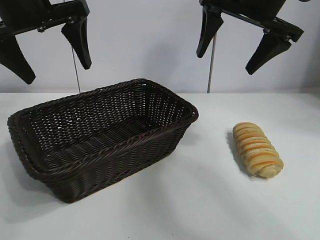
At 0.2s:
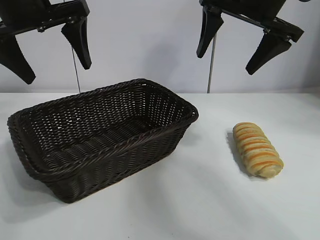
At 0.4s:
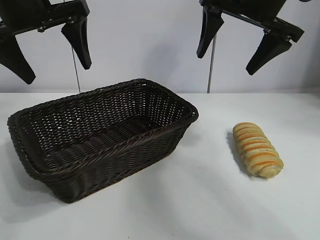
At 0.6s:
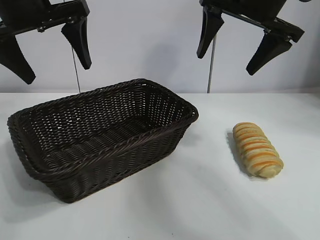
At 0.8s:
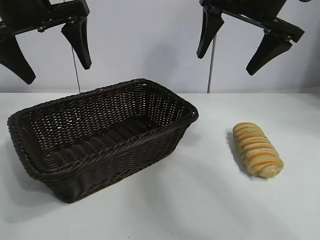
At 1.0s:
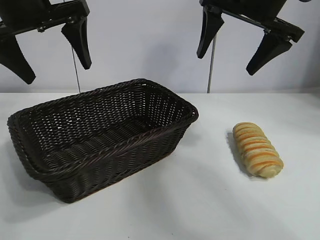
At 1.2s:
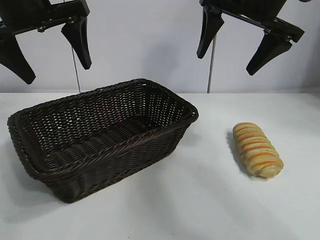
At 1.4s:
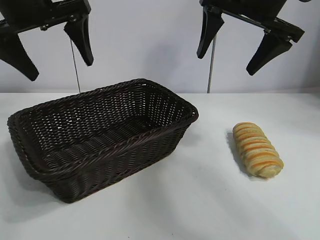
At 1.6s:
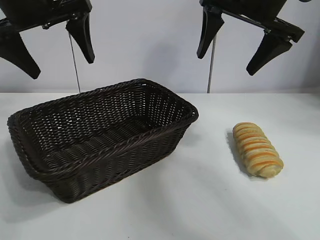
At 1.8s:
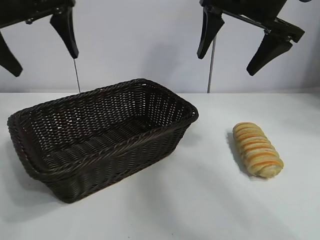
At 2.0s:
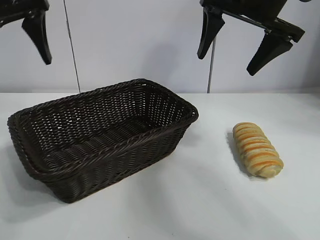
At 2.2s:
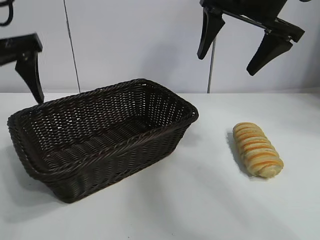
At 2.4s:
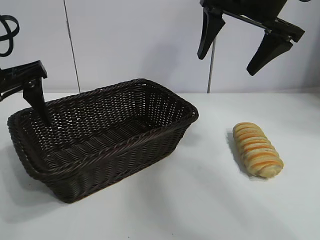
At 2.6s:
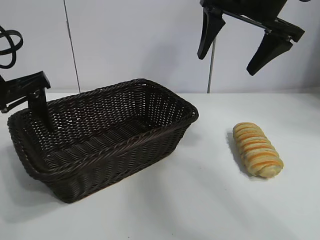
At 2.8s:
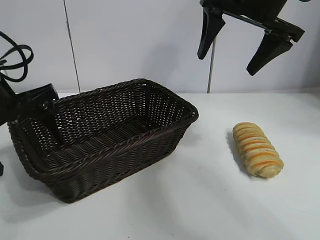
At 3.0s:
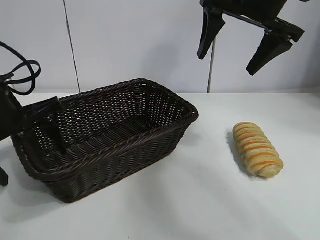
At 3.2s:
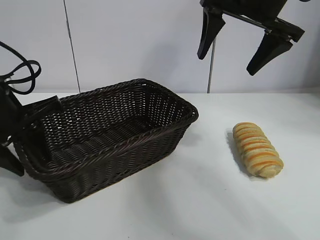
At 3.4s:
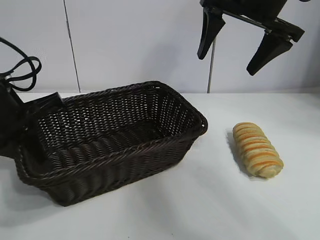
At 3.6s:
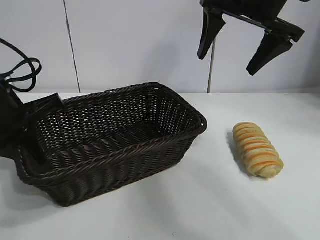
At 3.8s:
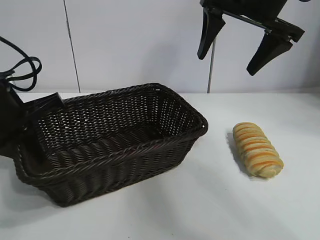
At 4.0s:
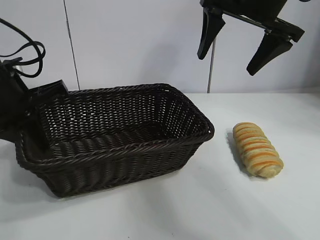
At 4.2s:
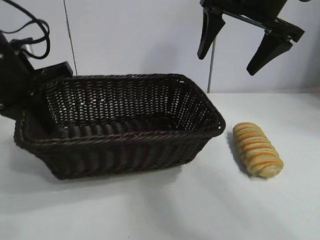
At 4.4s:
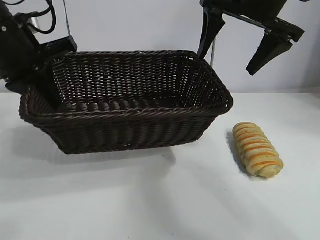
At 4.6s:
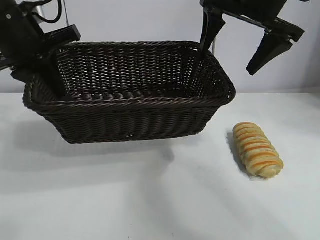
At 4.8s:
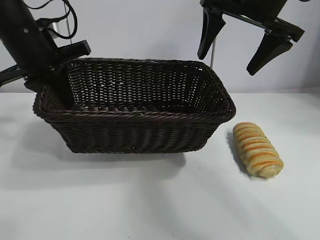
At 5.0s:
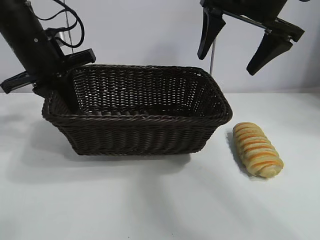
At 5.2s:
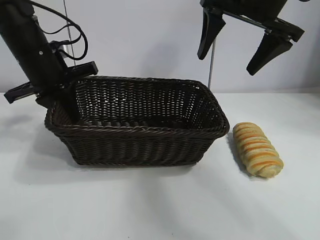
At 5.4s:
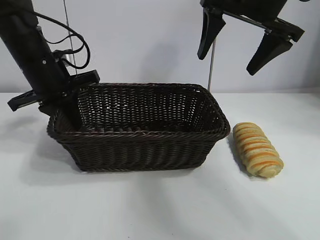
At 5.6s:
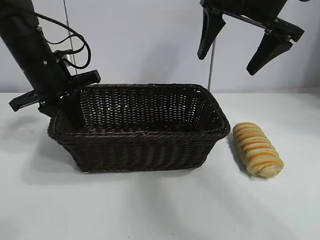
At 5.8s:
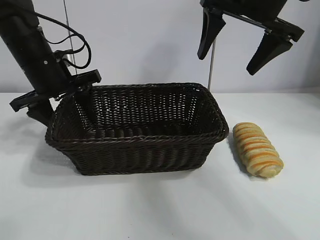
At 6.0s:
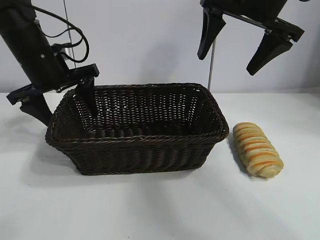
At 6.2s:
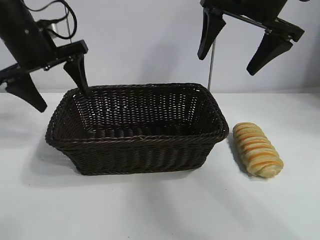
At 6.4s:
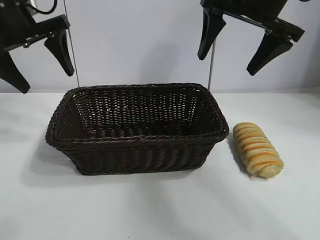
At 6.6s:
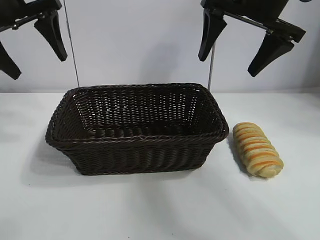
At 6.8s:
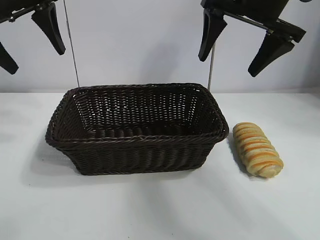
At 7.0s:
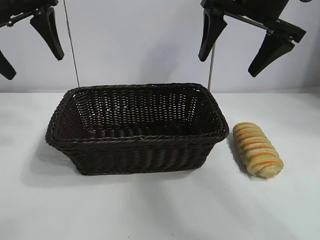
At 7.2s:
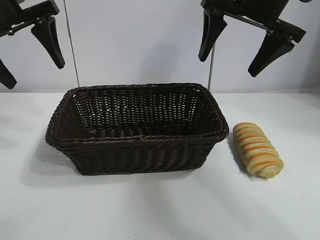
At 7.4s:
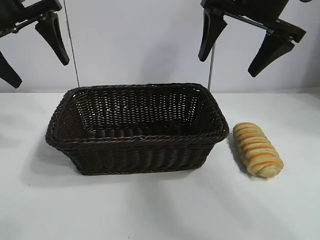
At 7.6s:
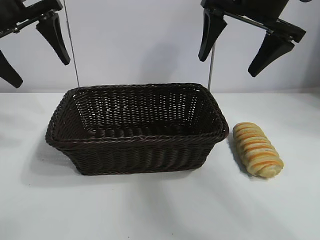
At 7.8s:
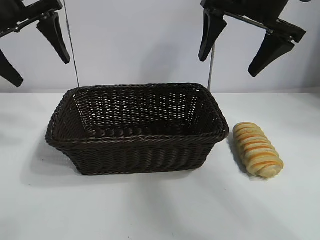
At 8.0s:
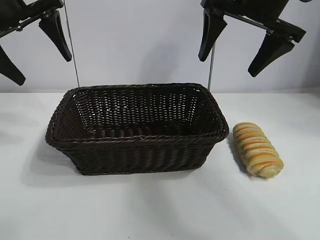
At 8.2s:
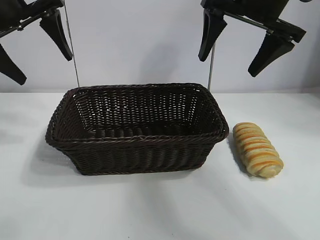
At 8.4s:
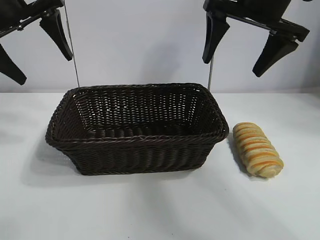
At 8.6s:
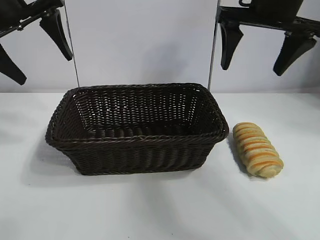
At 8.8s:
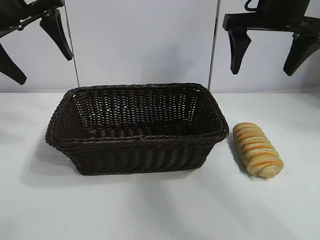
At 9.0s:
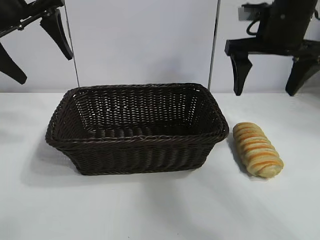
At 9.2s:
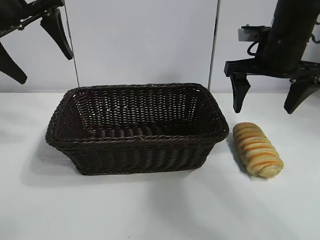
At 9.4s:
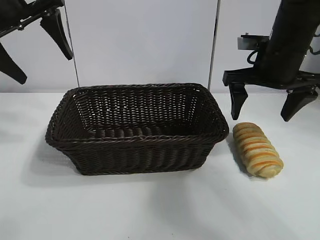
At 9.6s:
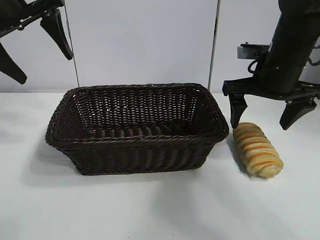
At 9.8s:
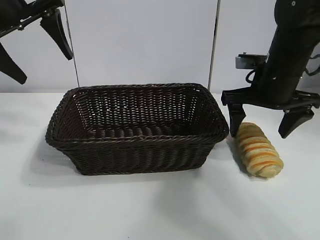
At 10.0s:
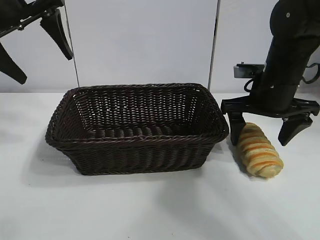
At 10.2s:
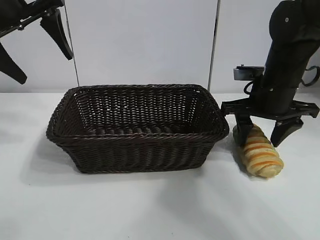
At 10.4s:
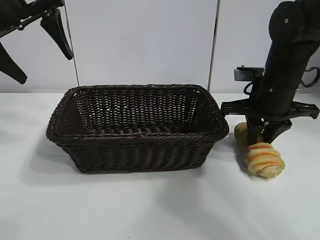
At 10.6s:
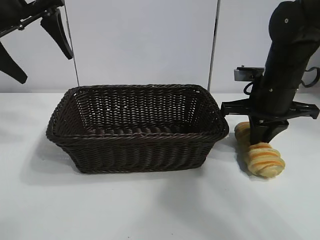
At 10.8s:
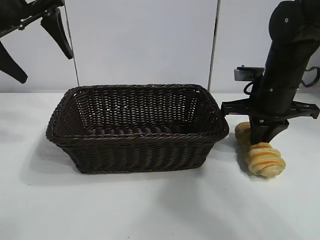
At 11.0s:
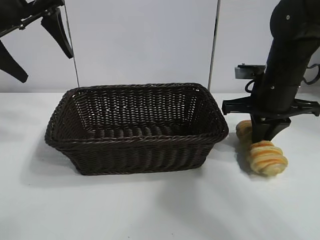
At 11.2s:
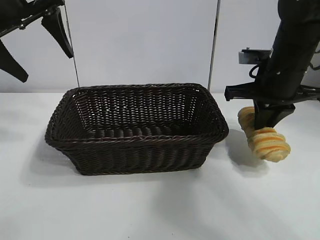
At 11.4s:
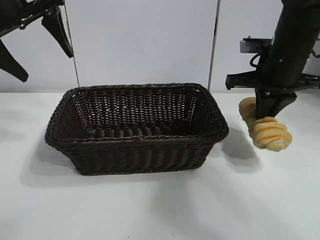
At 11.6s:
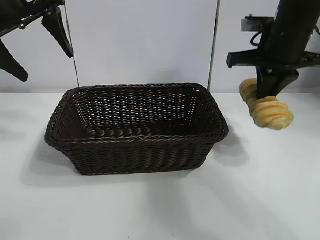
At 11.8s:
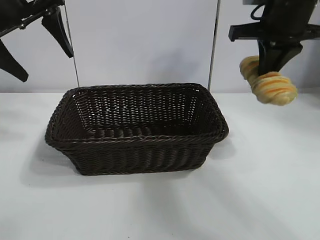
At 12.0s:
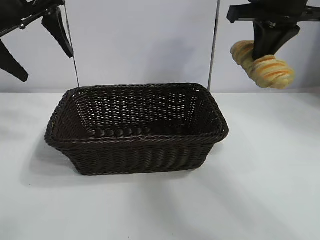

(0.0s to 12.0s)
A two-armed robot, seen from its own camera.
Task of the whole recording: pick up the long bread and put it into the basket.
Step, 1.4s - 3.6s: Grasp the basket with the left gripper.
Step, 3.8s - 5.8s: Place the basket in the center of the table with the left gripper.
Step, 6.0s - 10.6s: Grasp the long bread with right gripper.

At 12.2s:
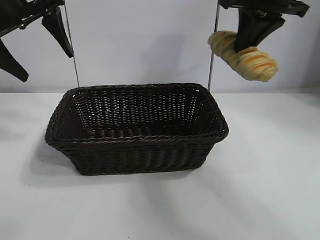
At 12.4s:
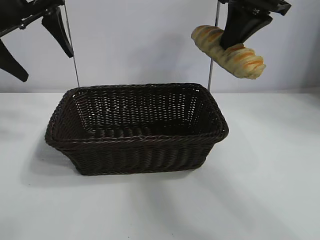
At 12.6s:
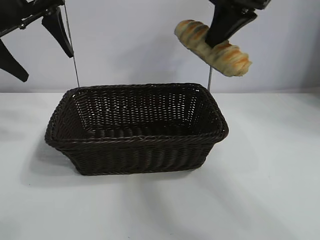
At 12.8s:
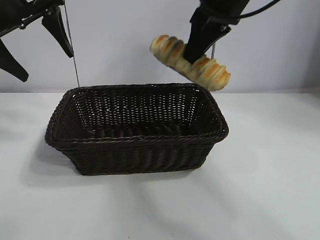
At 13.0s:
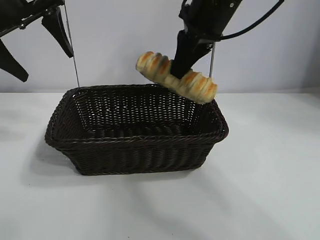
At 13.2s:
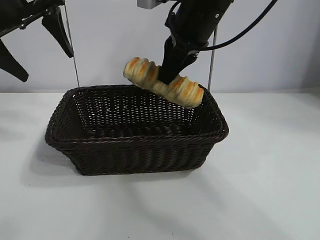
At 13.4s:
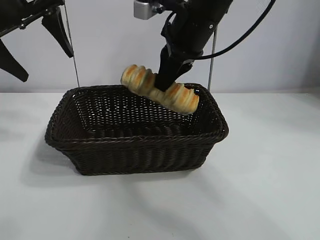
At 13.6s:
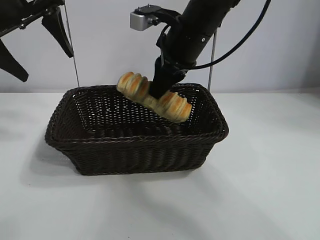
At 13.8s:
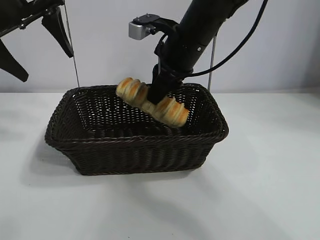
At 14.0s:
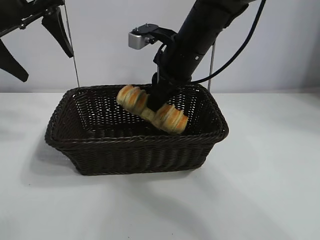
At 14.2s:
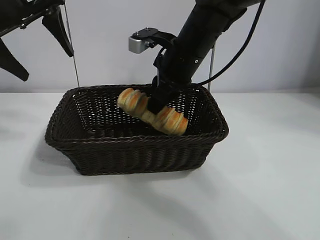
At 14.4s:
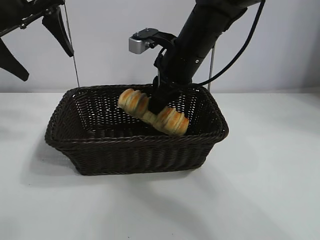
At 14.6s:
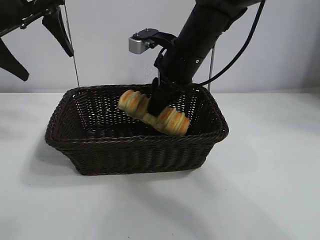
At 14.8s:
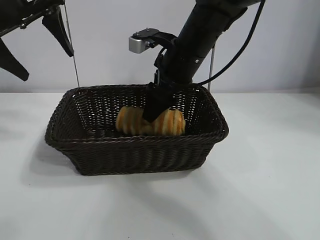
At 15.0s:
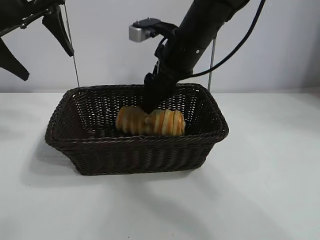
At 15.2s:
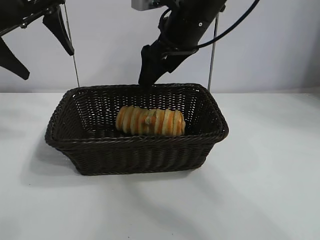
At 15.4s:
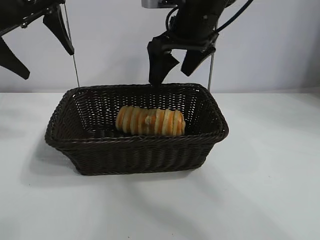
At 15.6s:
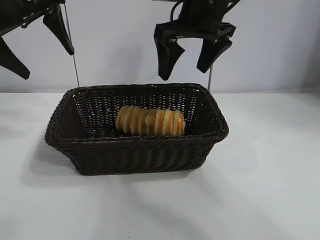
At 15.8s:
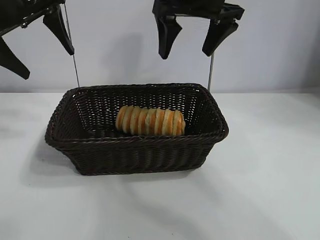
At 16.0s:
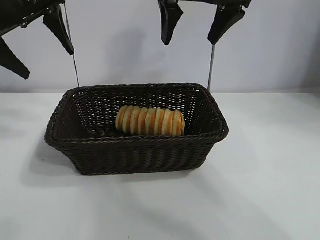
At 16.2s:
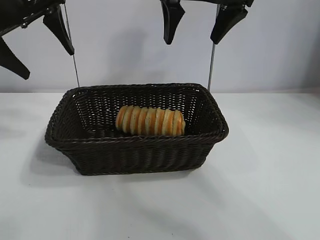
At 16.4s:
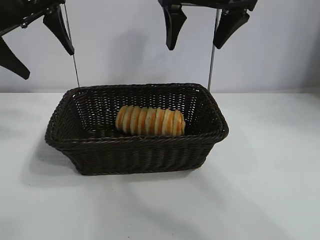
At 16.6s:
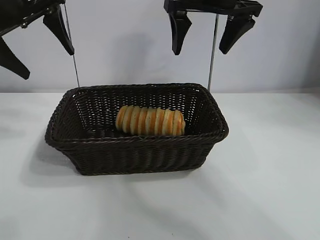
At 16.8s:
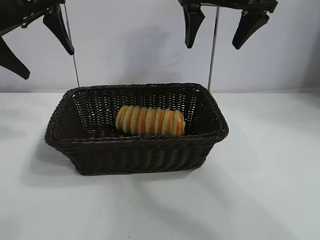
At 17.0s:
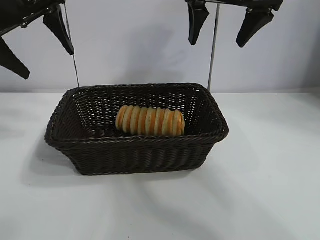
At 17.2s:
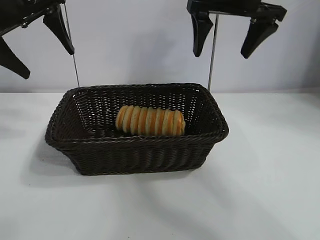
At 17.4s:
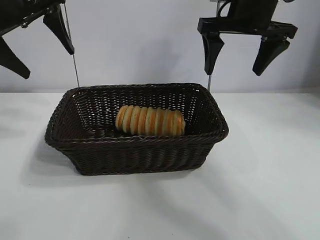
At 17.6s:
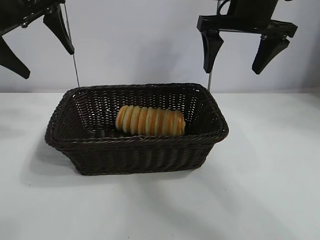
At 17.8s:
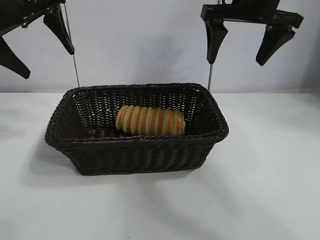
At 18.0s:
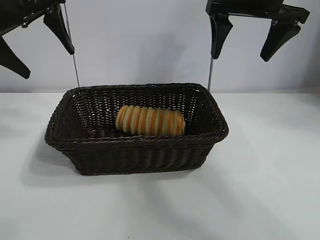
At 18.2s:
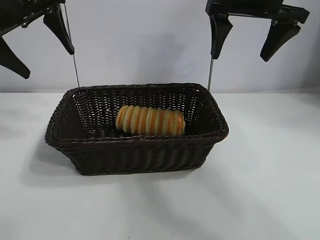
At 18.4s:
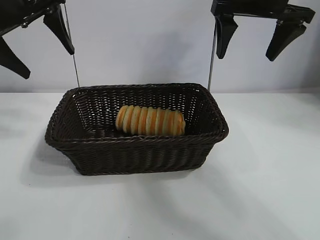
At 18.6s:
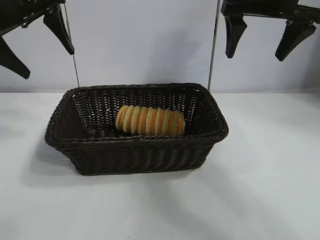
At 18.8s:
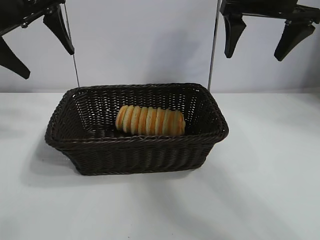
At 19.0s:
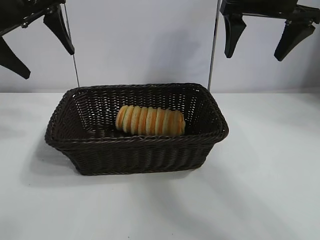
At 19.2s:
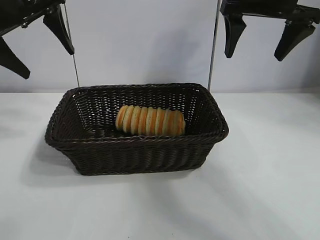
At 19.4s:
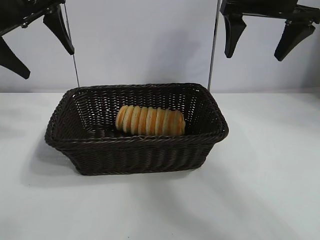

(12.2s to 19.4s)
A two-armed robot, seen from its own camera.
Task of the whole recording: pick up the long bread and put it into the basket.
Step, 12.2s - 15.0s: Place the long bread in the basket with right gripper.
